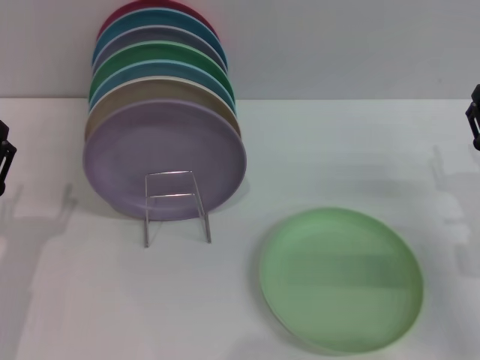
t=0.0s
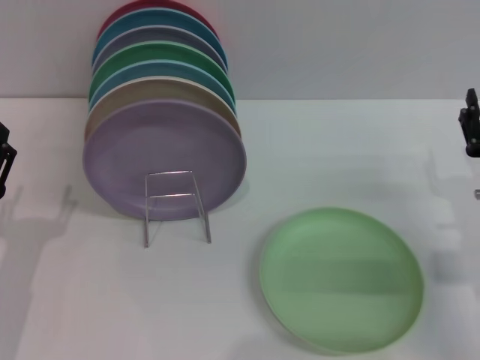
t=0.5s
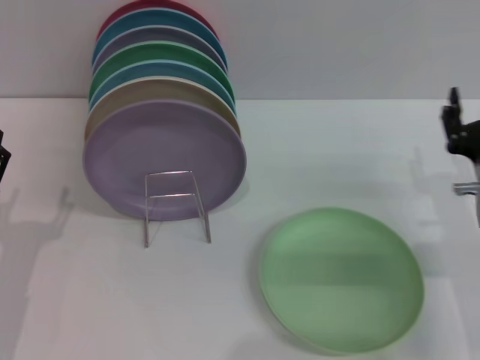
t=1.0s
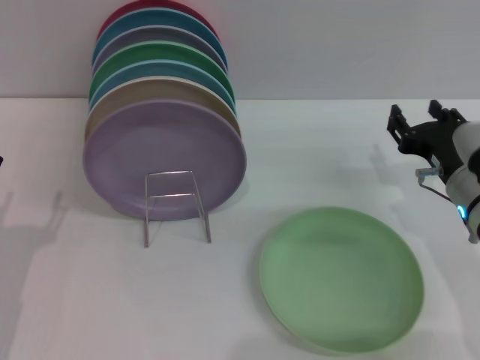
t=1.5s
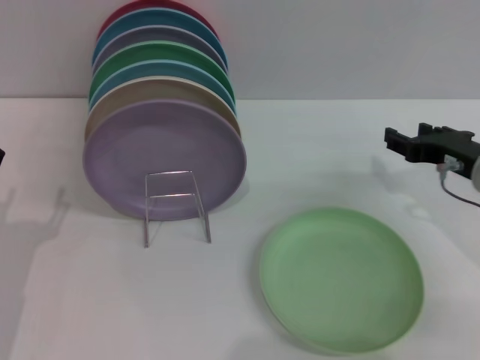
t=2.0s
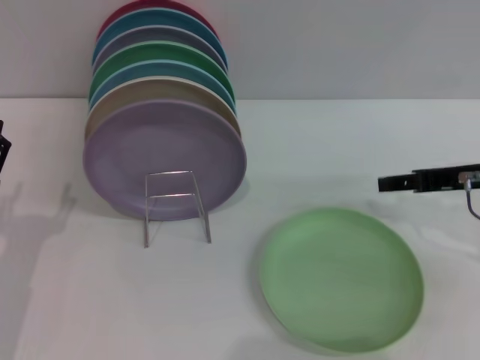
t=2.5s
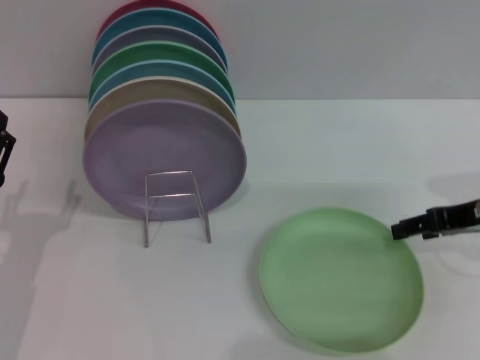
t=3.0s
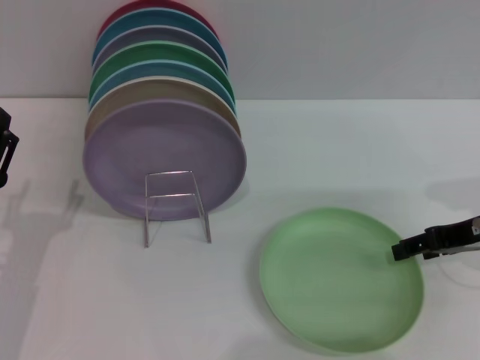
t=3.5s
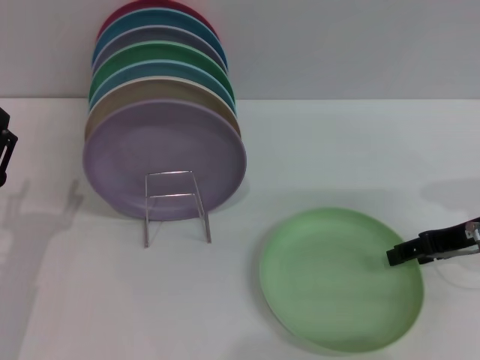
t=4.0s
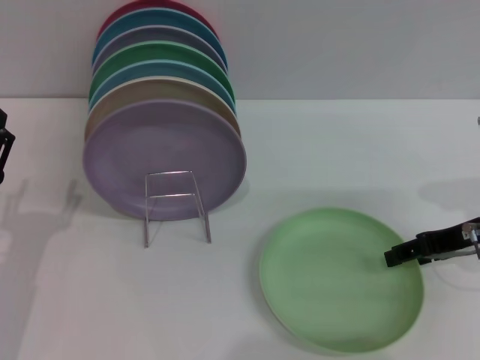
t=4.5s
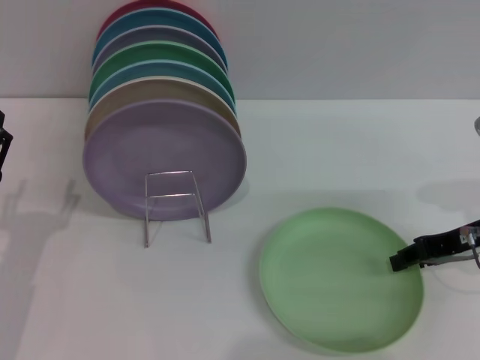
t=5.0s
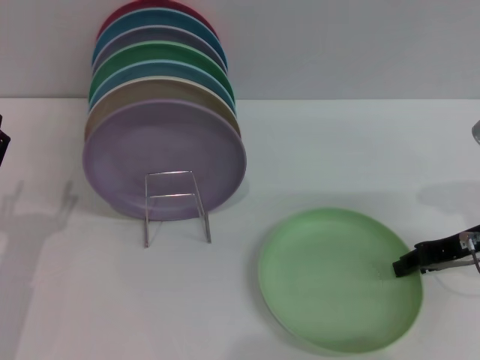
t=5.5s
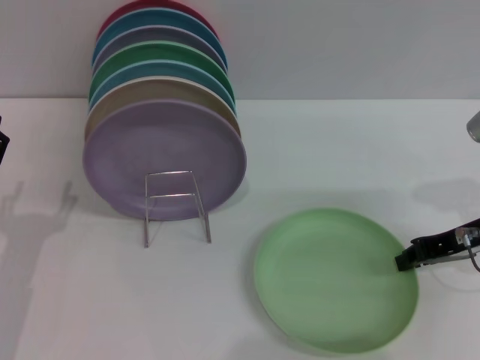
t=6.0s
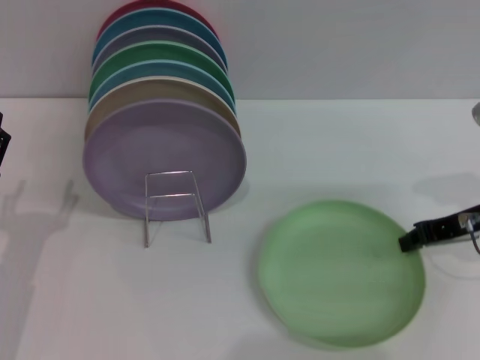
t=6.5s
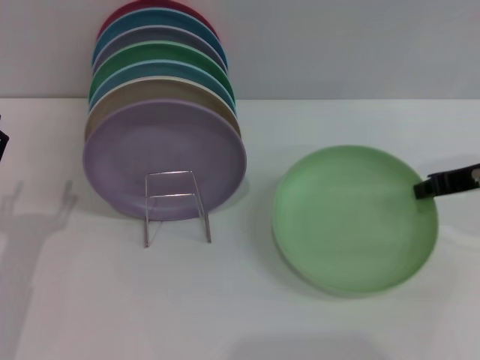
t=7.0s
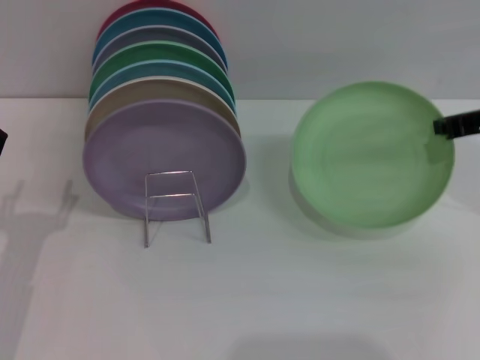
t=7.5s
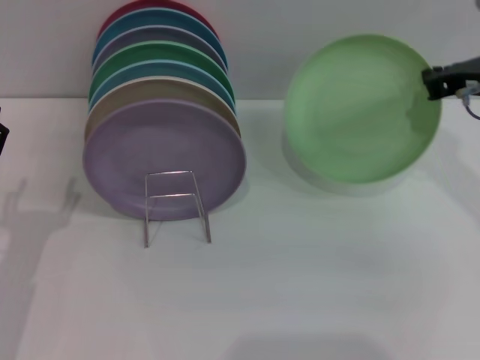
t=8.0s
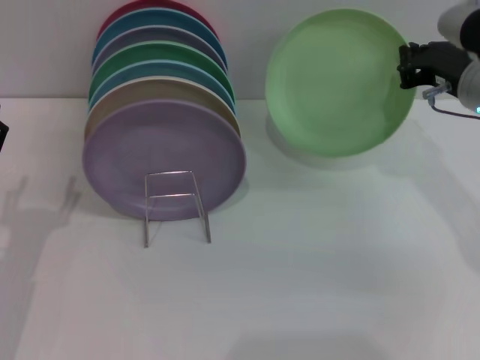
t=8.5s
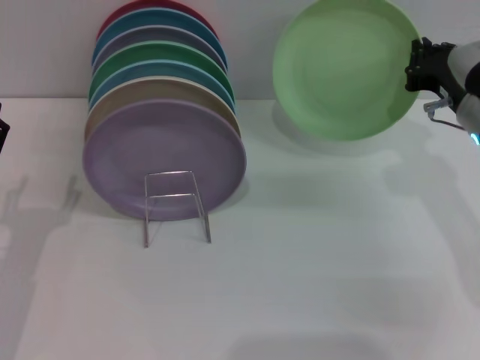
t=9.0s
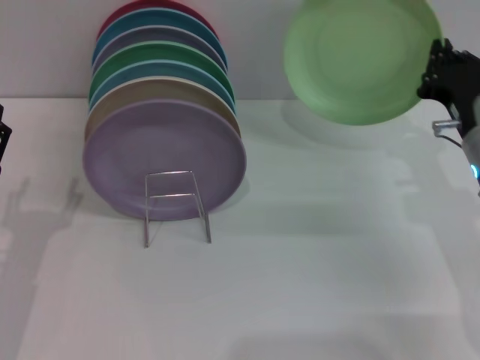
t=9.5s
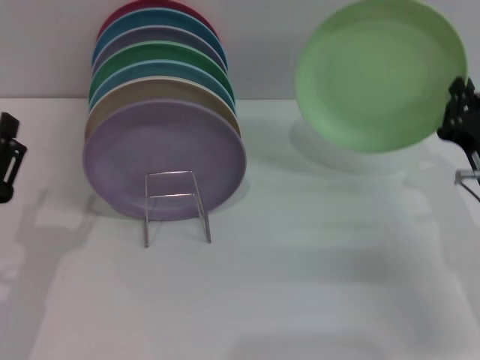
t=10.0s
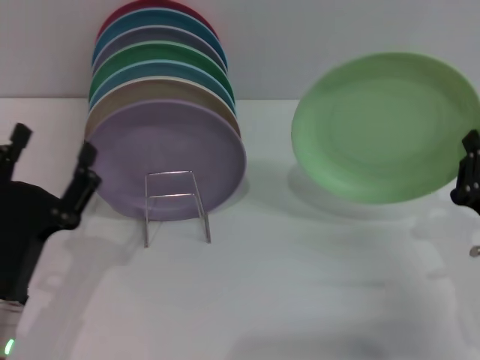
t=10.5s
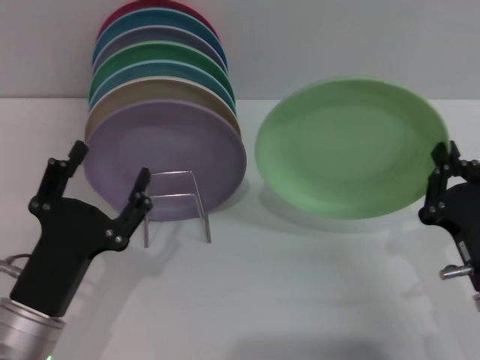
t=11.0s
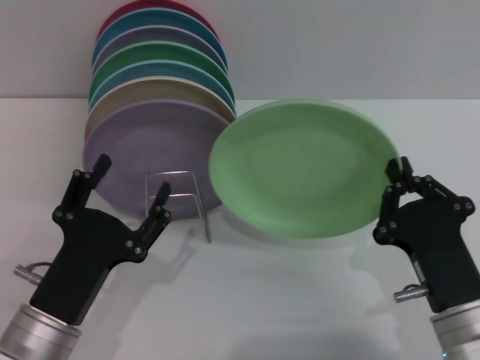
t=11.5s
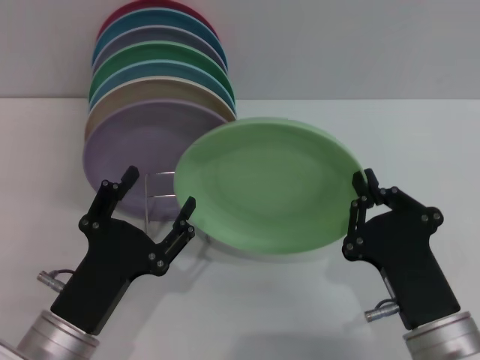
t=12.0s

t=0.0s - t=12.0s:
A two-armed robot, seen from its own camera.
Task of the whole recording: Grip the plate with one hand, pass it to the other, then set it on the shelf.
Step, t=0.0s - t=9.5s: Pick up the plate with the right gripper.
t=0.0s - t=2.0s: The right gripper travels upward by approximately 5 cm.
t=4.0s - t=6.0s: The right gripper closes.
t=6.0s - t=8.0s: The right gripper heads upward and forward, covering roughly 10 cm.
t=8.0s - t=10.0s: The right gripper goes approximately 15 cm downward and backward.
t=10.0s - t=12.0s: The left gripper heads to the right, covering approximately 10 cm. Meanwhile the right gripper is displaced backward and to the left by some 15 cm.

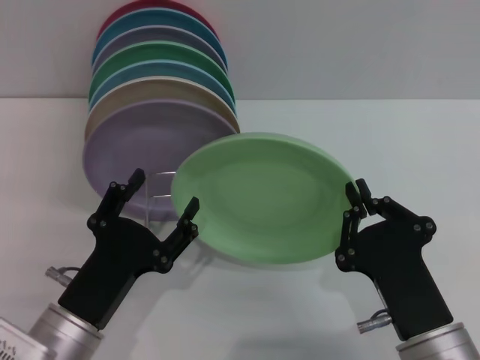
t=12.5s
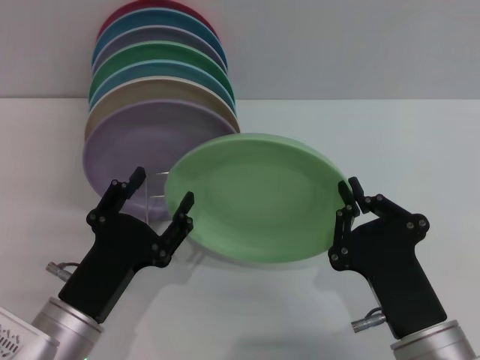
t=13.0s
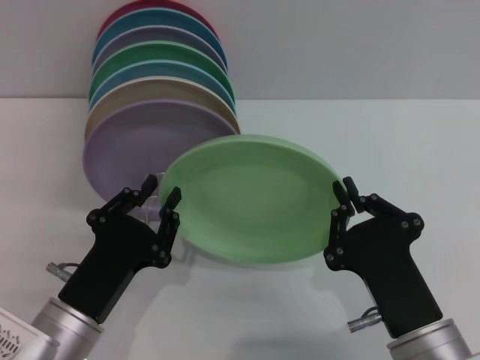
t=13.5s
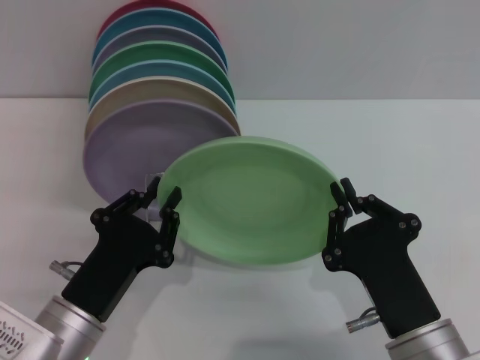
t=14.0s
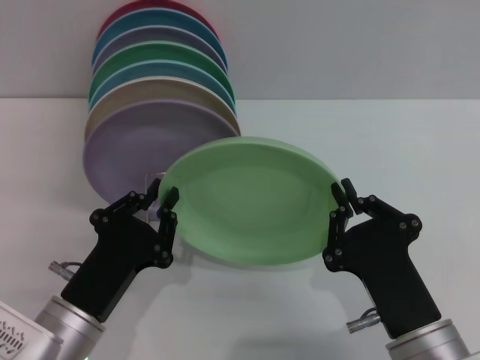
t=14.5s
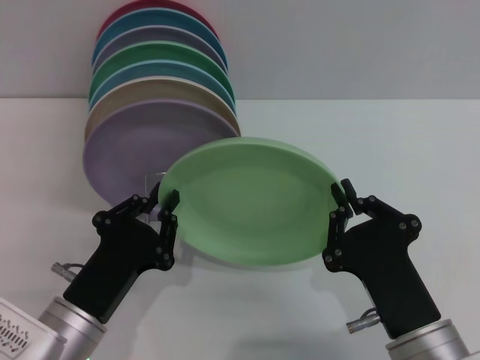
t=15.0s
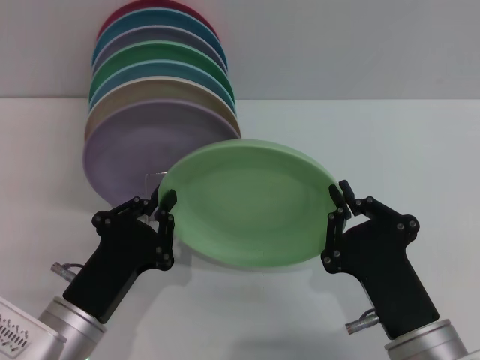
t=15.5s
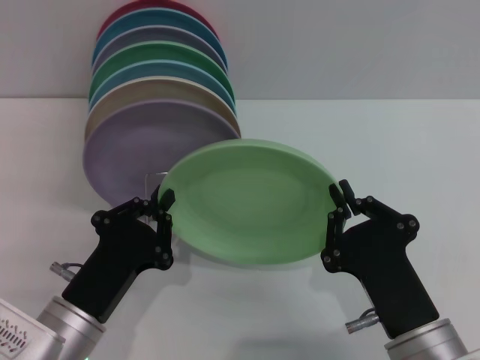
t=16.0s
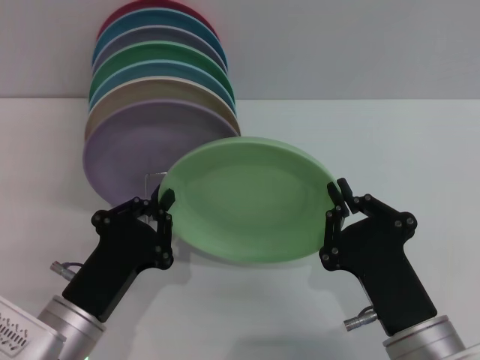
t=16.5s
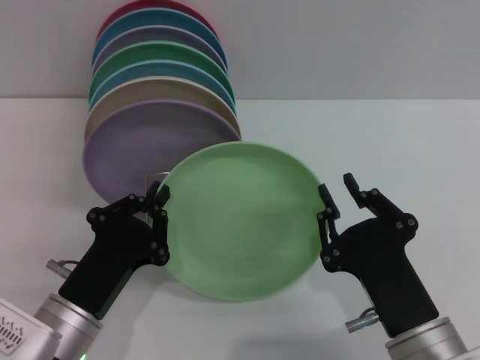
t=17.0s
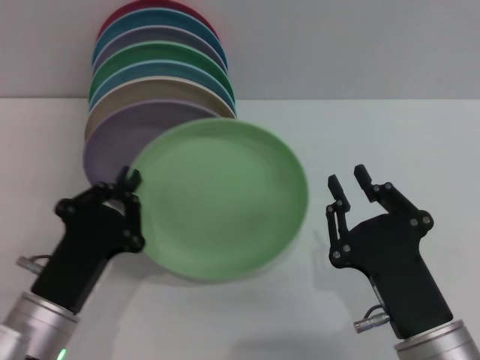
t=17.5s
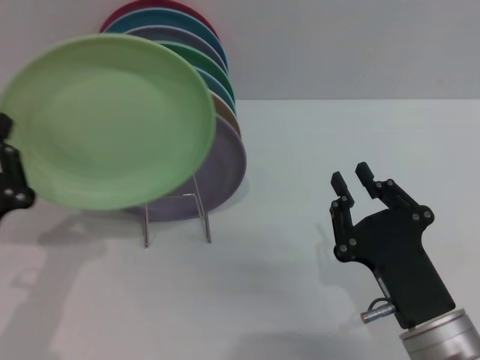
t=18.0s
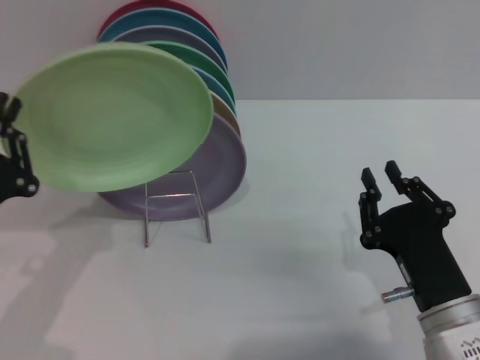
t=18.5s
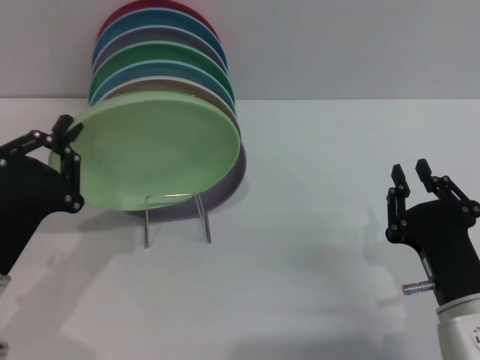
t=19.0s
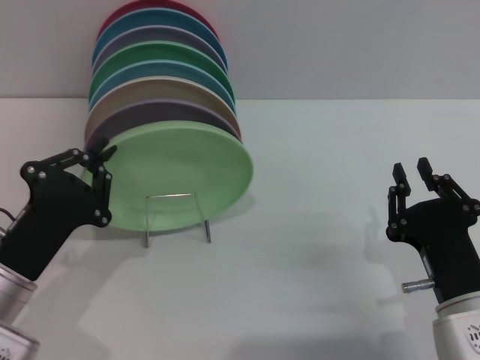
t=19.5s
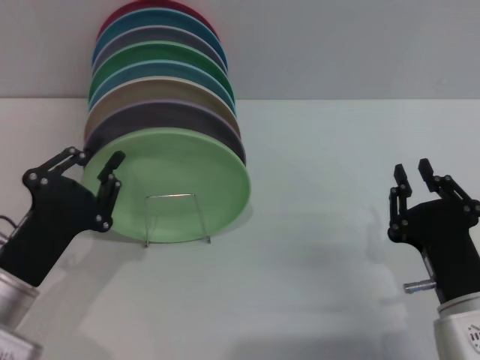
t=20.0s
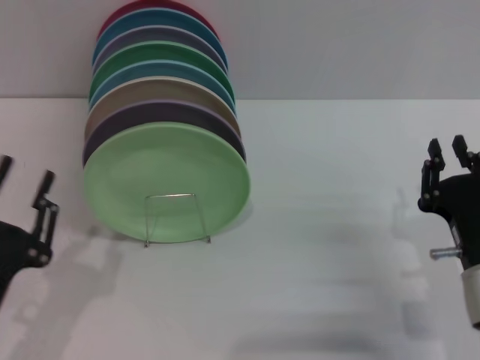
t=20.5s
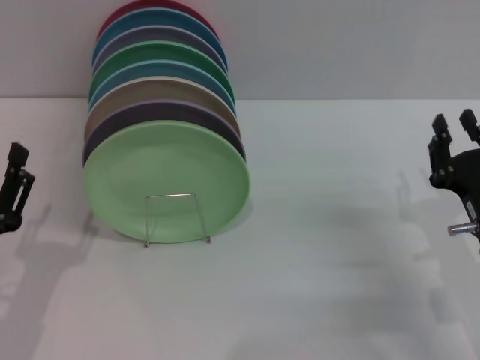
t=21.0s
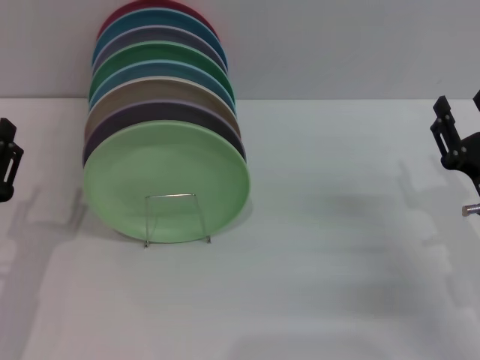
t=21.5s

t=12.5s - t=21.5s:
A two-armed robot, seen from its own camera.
Task of the whole recording: Grip the plate with one hand, pass it to the other, then set it on the shelf.
Step, t=12.5s - t=17.5s: Pass the plate from the right gripper to the left gripper.
Step, t=18.0s - t=20.0s: Place the plate on the shelf with the left gripper.
t=12.5s - t=14.5s: The left gripper closes up.
t=14.5s - t=17.0s: The two grippers keep their place.
t=17.0s - t=19.5s: The left gripper moves to the left, about 5 cm, while the right gripper shifts by about 5 cm.
t=19.5s - t=21.5s: The left gripper opens its fingers; the right gripper heads to the right and forward, covering some 10 cm, and opens up.

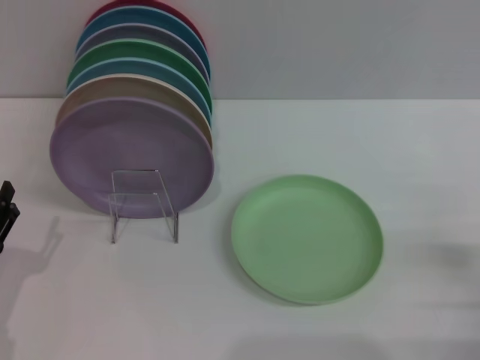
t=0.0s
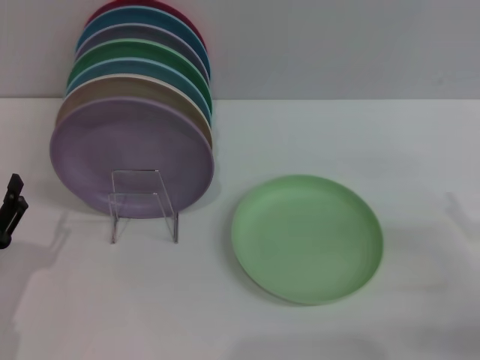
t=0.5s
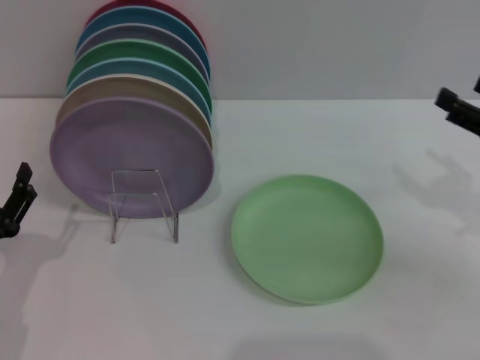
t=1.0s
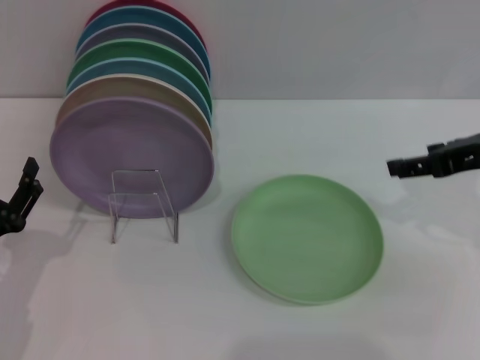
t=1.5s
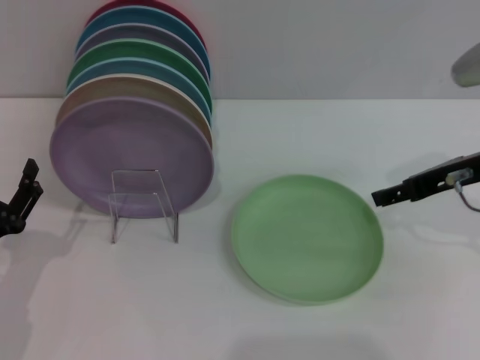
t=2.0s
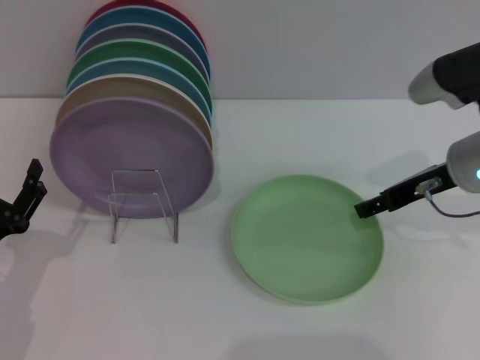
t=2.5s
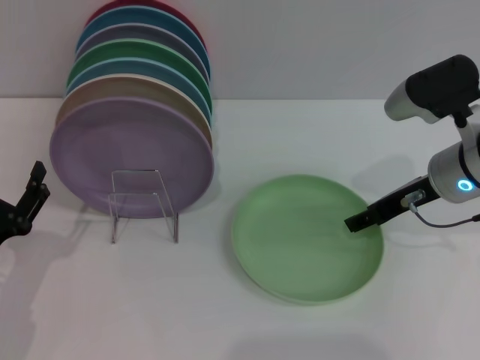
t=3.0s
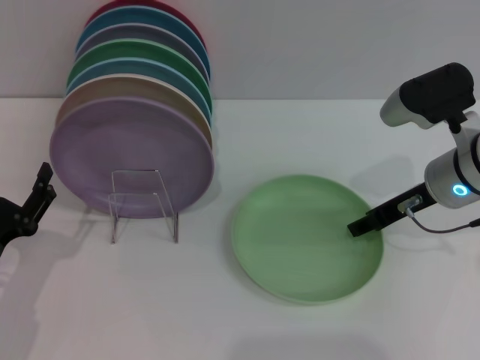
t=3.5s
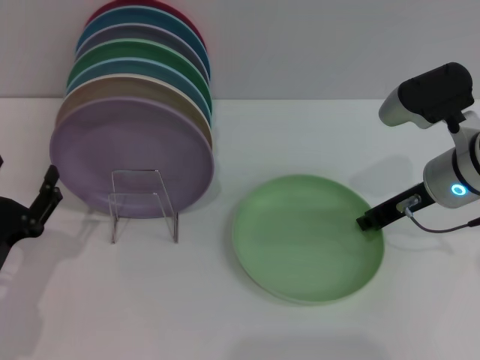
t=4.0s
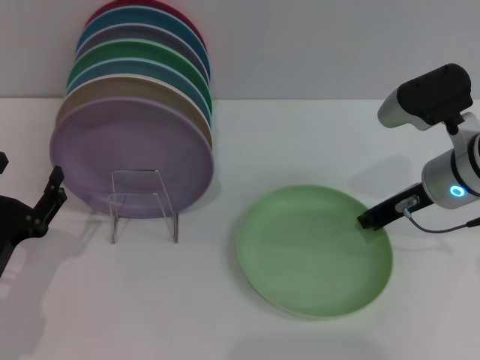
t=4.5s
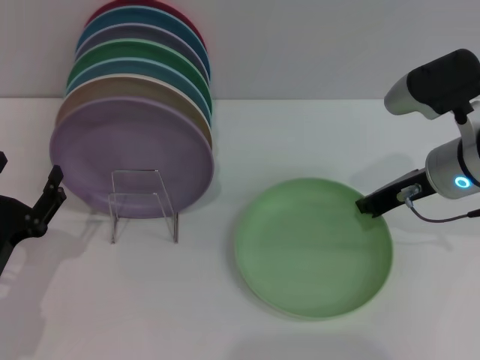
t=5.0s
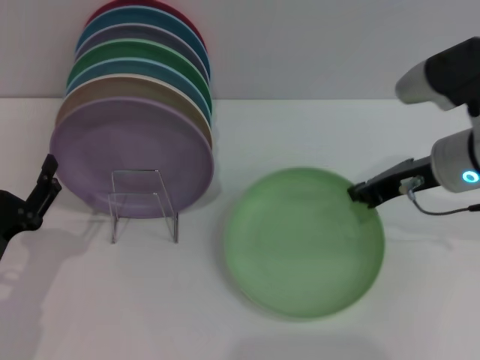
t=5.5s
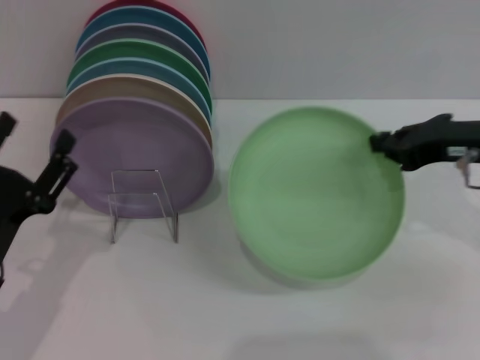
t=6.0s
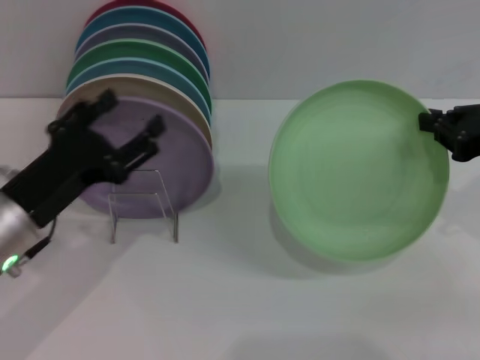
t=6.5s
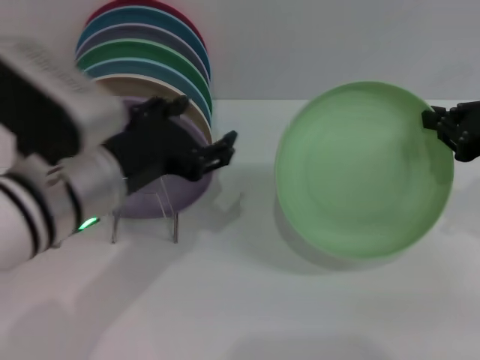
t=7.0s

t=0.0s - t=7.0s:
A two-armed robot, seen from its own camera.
Task of the whole recording: Grip the plate with one hand, pass it to the other, then set it on the shelf.
Step, t=0.0s - t=6.0s: Pick up the plate with the right gripper.
t=0.0s - t=2.0s: The right gripper travels forward, upward and to the left by about 25 cm.
t=2.0s - t=3.5s: The right gripper ends up some 5 cm from where it was.
t=3.5s - t=5.0s: The right gripper closes.
t=5.0s - t=7.0s: The left gripper moves upward and to the right, approximately 20 cm. Meanwhile the right gripper is displaced to the right and backward by approximately 10 cm.
